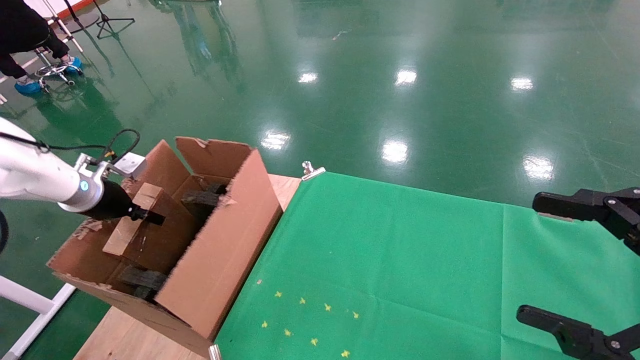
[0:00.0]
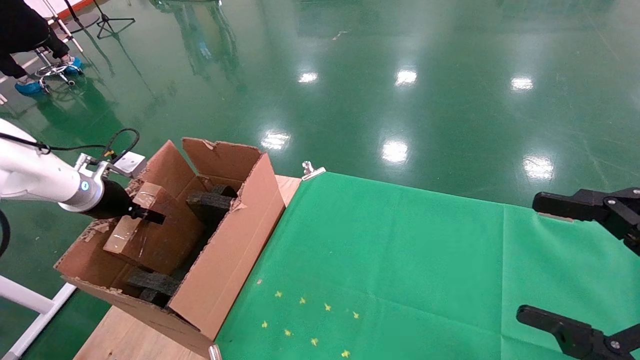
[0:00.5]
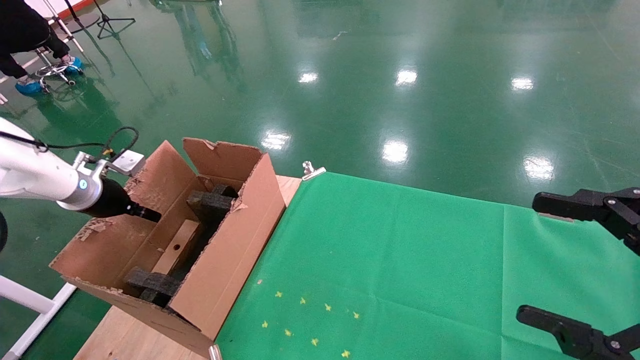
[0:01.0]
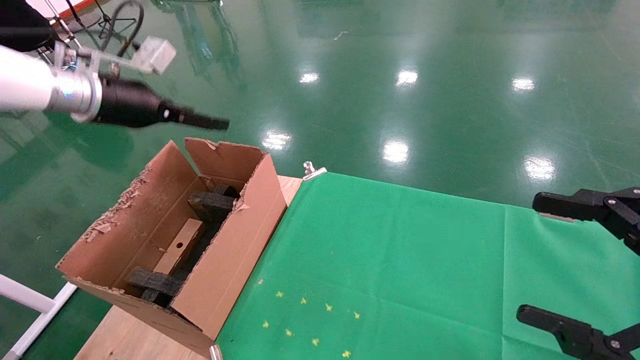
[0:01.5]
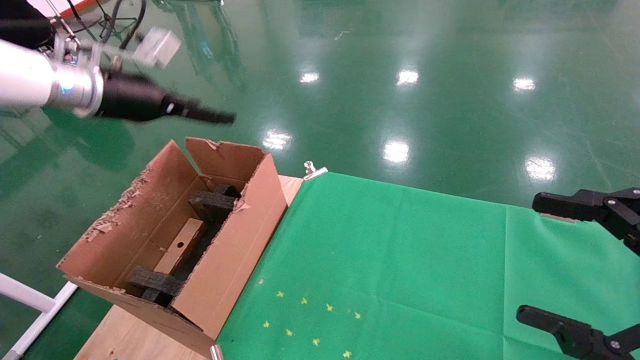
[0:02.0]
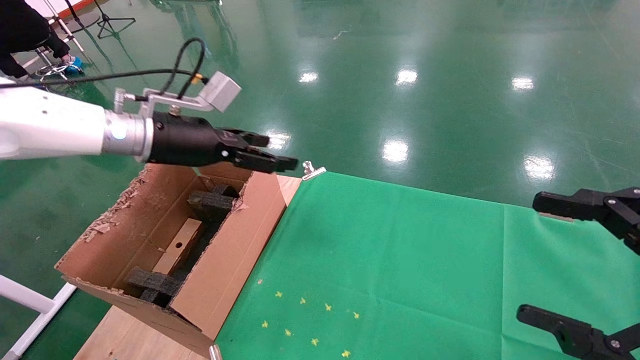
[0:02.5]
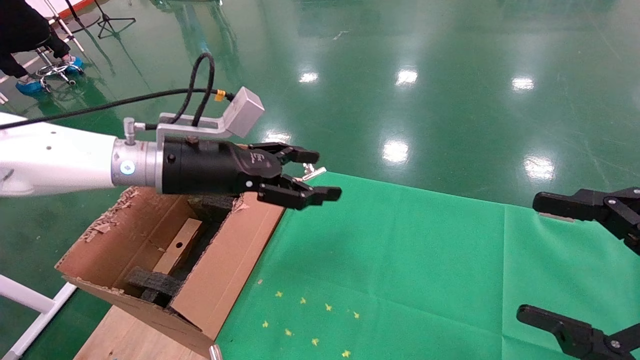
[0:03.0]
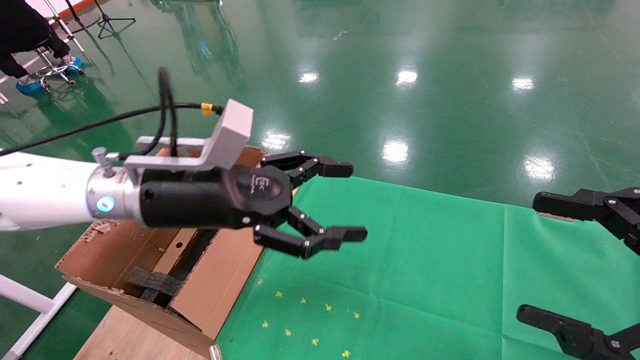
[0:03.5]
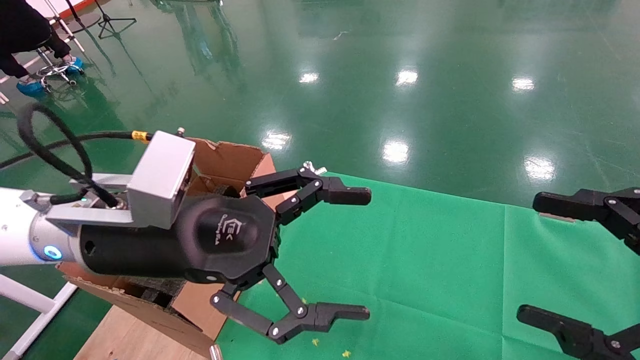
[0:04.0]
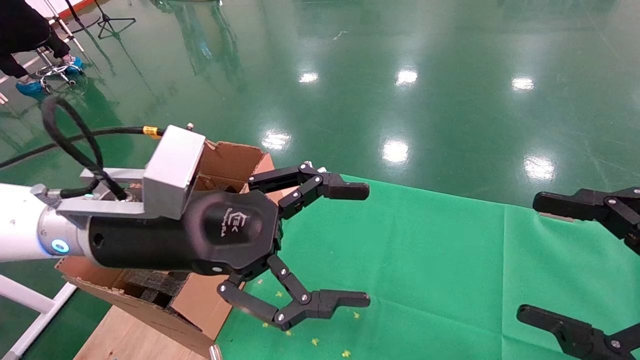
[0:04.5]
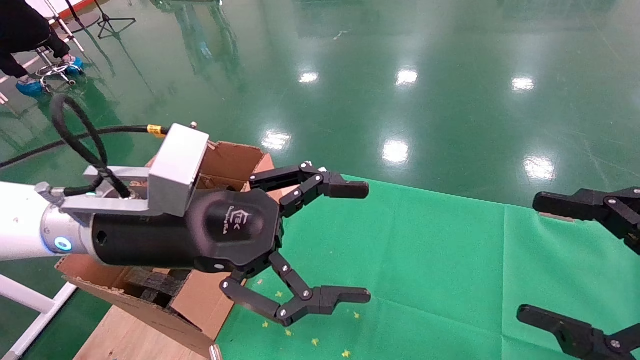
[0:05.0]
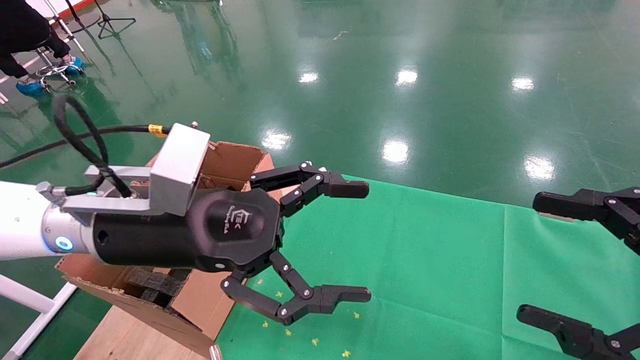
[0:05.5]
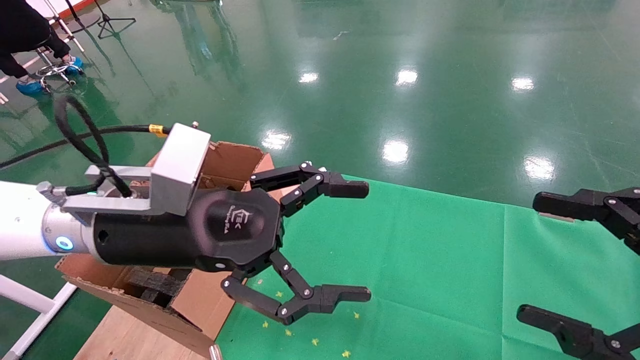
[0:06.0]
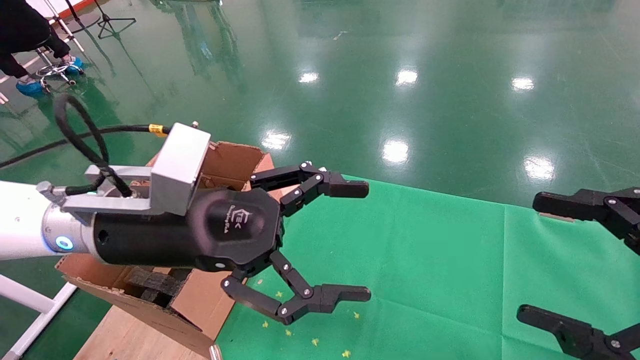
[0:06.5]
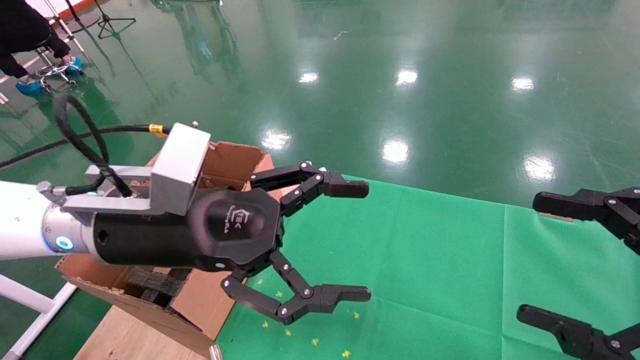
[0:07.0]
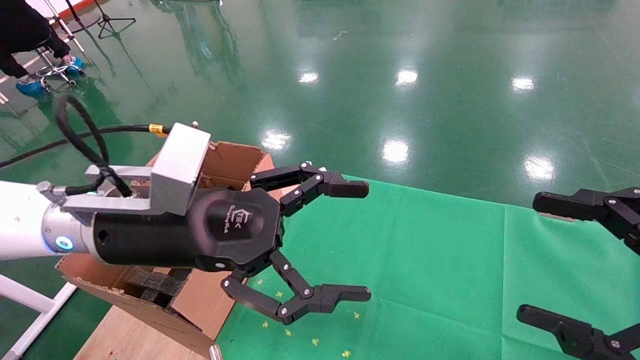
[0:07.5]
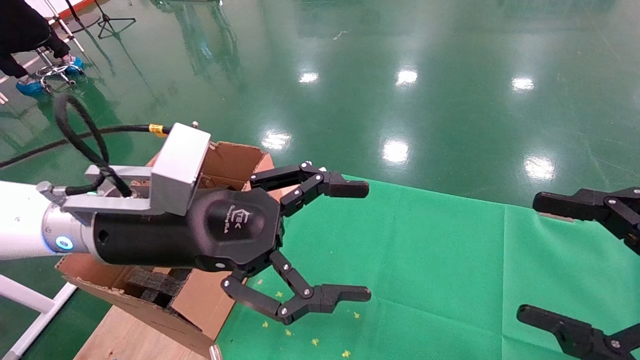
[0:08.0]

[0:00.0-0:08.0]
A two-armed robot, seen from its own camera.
Task of the whole recording: using a robotic arm to pick up a cardboard box and palace it the carton.
0:00.0 to 0:02.0: The left gripper travels upward and to the right by some 15 cm, and opens up.
0:02.0 to 0:04.0: The left gripper travels to the right and backward by roughly 25 cm.
0:04.0 to 0:08.0: Both grippers stay put.
